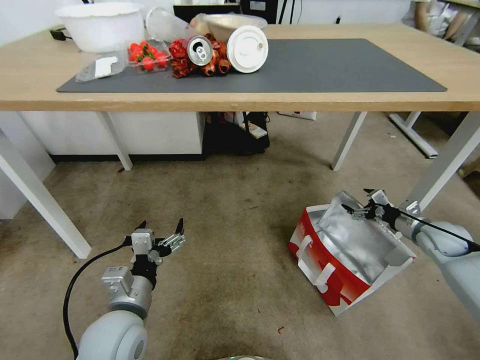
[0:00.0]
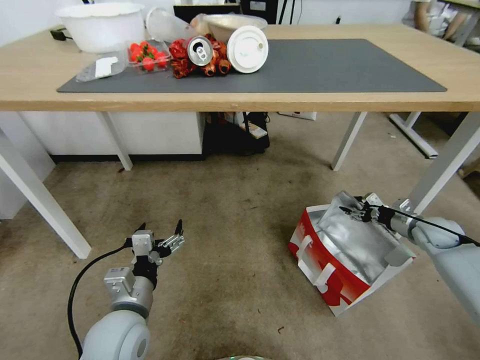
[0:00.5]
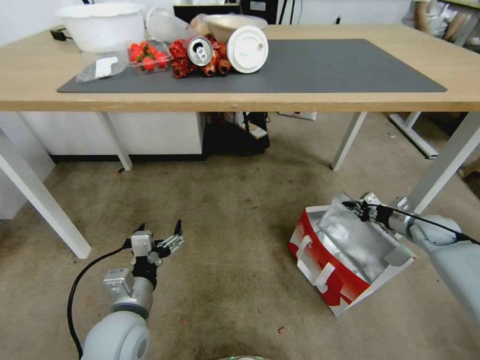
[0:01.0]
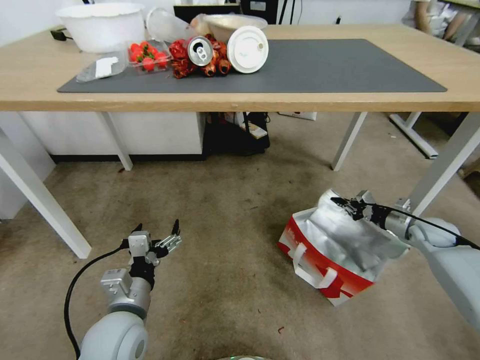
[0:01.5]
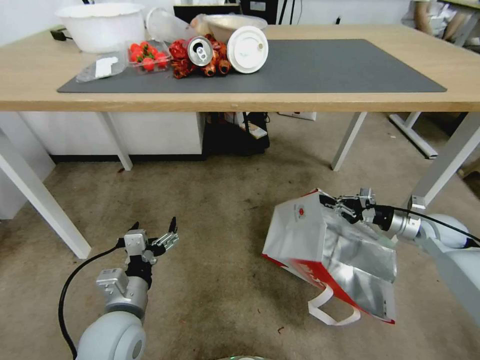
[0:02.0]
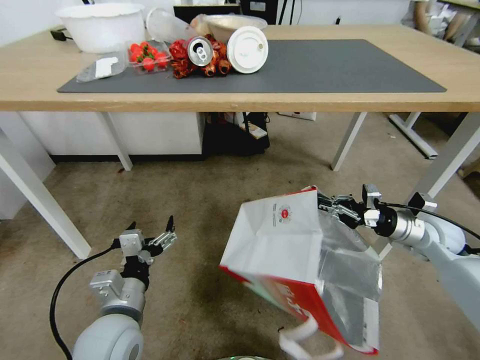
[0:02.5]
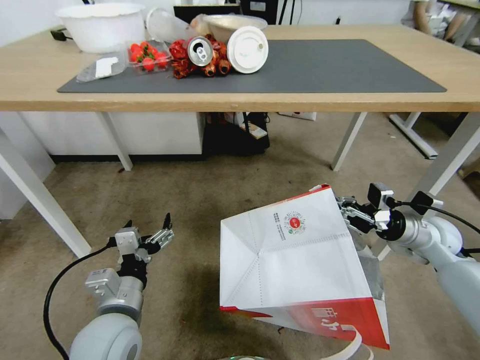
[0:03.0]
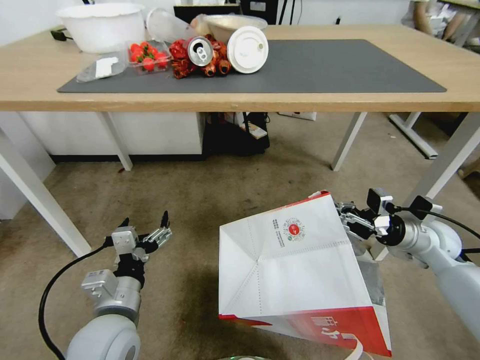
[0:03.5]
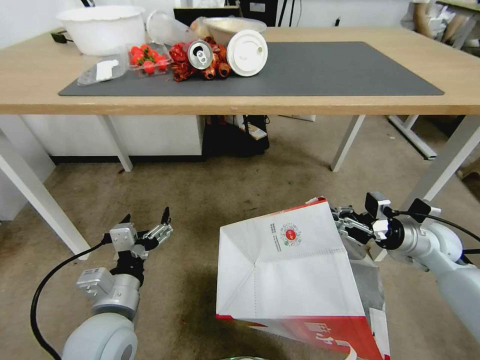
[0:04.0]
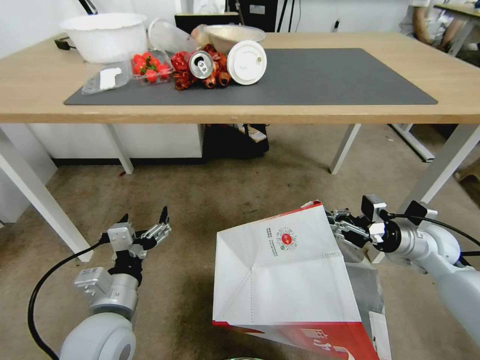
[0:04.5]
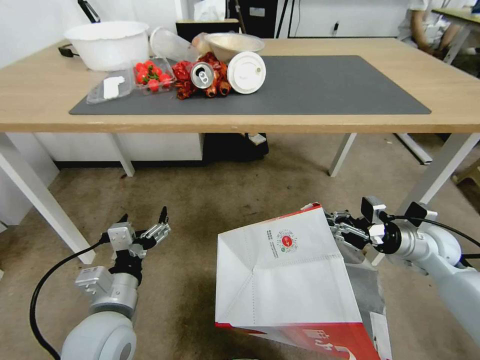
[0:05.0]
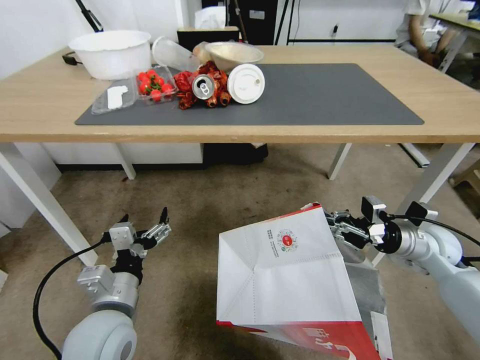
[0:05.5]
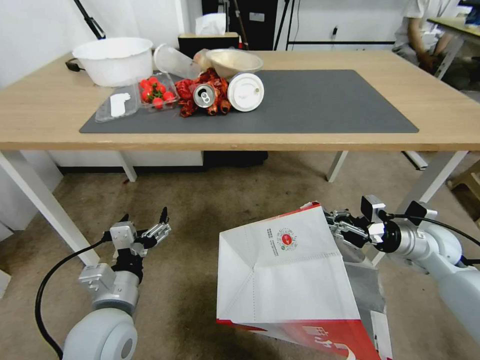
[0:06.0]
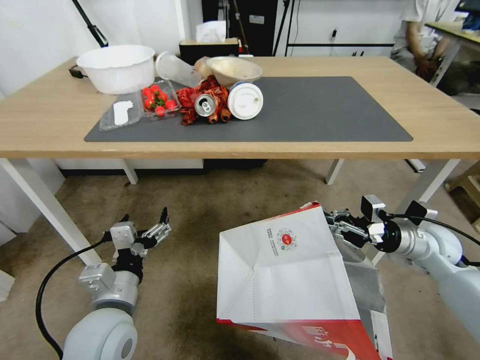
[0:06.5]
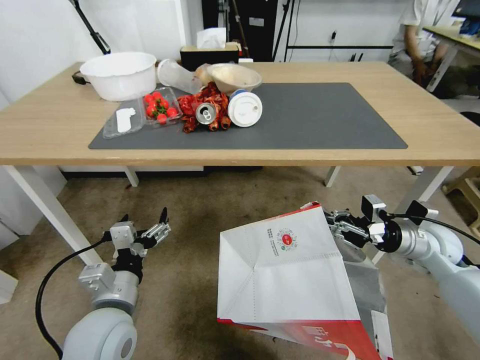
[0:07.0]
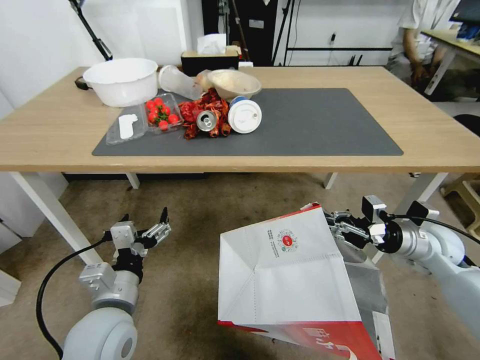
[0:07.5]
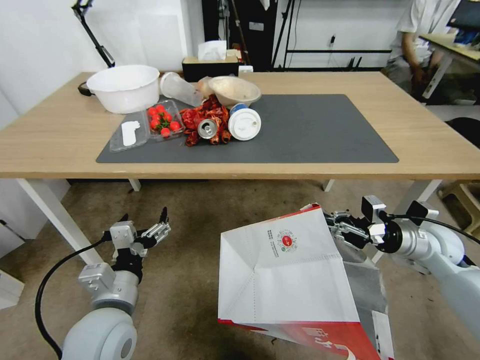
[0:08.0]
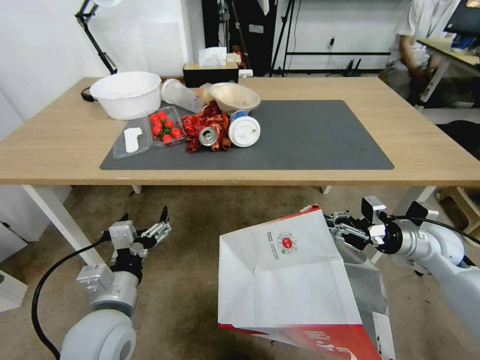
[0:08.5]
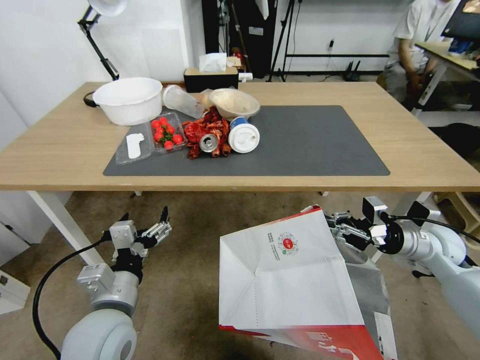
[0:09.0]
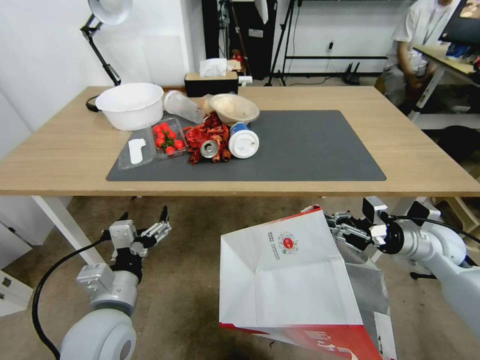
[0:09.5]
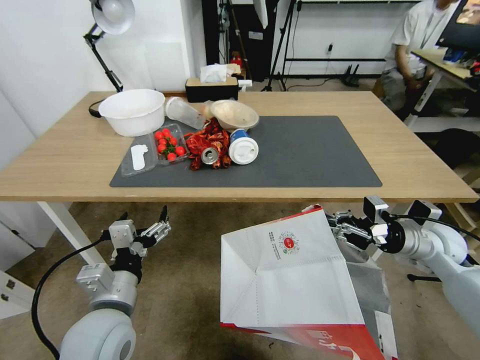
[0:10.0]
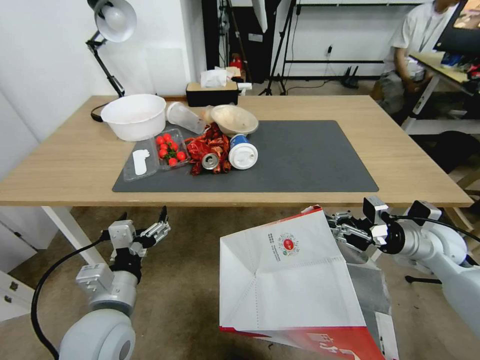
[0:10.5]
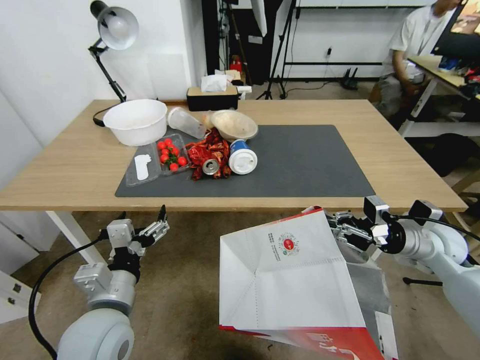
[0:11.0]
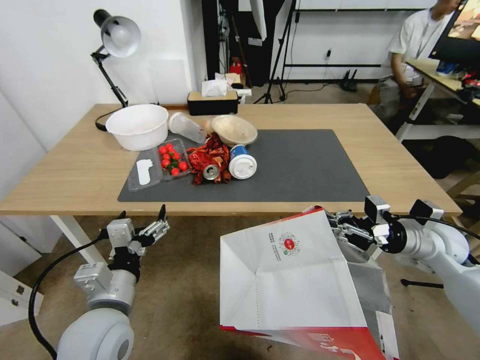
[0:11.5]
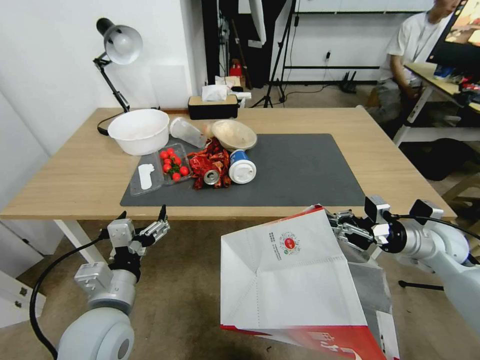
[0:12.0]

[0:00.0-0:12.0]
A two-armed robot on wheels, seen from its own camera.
Task of the whole recording: Pick up the food delivery bag from the floor and place it on the table.
0:00.0 to 0:02.0: The right gripper closes.
0:02.0 to 0:04.0: The right gripper shifts about 5 cm to the left.

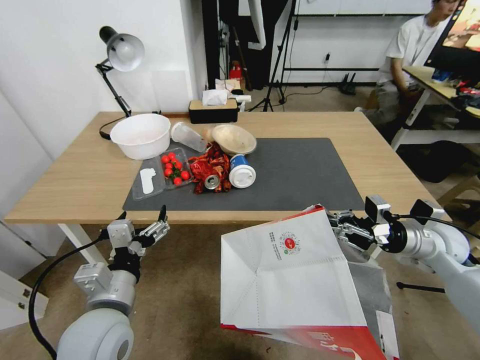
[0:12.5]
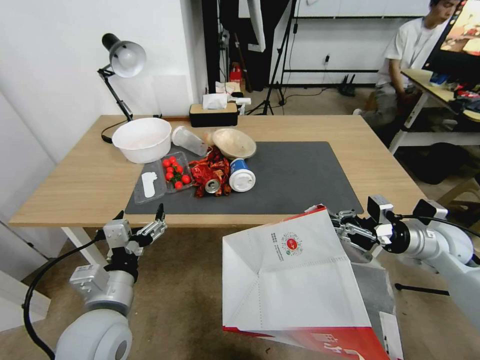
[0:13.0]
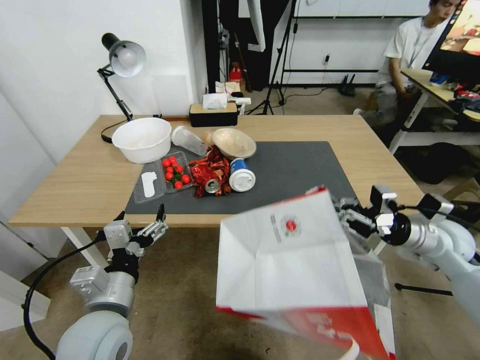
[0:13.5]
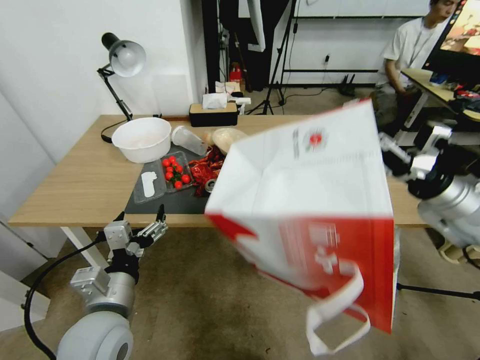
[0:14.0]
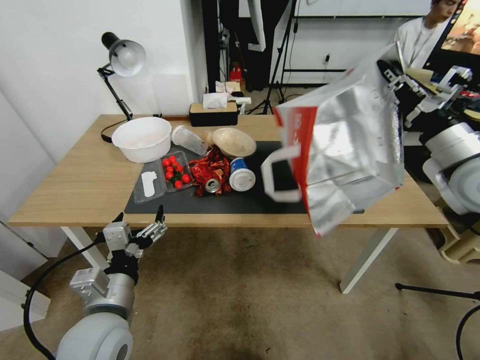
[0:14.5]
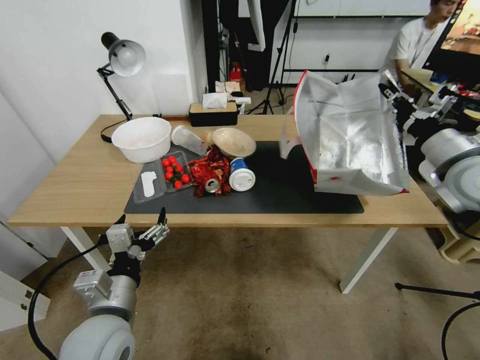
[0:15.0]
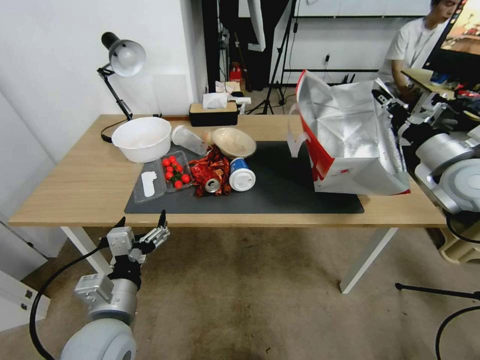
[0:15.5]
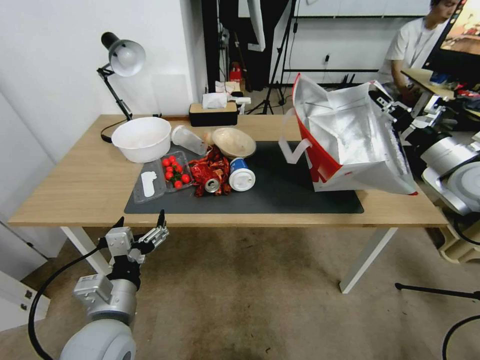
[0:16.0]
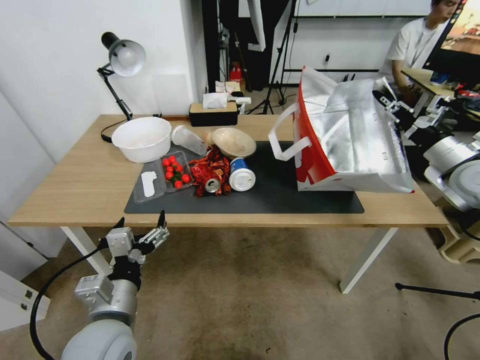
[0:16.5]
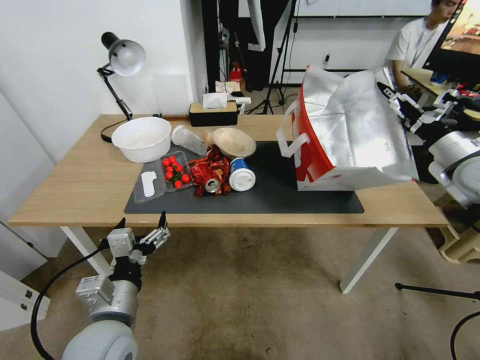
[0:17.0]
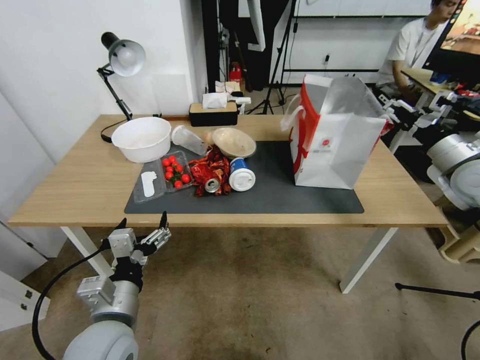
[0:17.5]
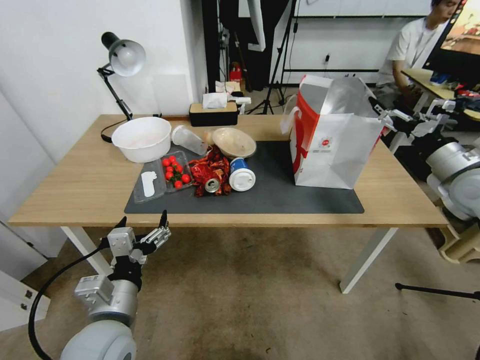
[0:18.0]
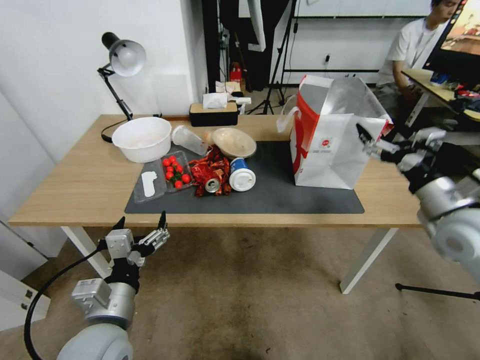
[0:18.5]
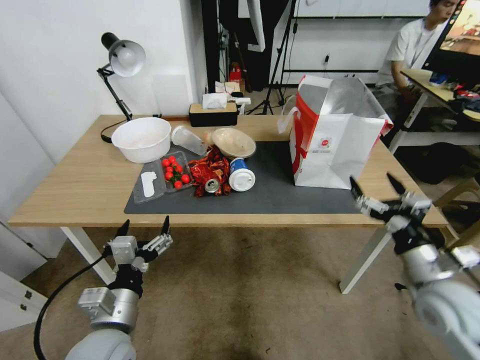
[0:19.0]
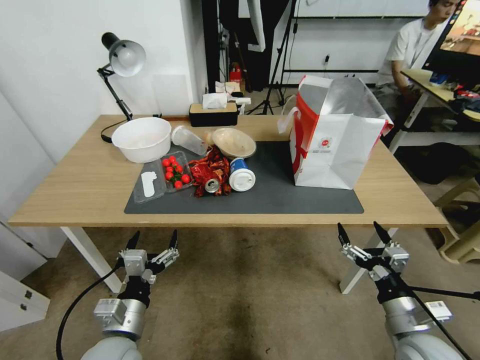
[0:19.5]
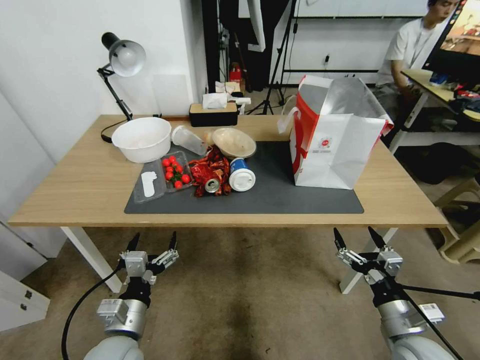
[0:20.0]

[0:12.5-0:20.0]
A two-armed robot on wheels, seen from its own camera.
Task of the whole recording: Pick up the food delivery bag from the floor and place it on the table.
0:12.5 to 0:14.5: The right gripper heads upward, covering roughly 20 cm.
0:14.5 to 0:16.5: The right gripper moves to the right, downward and forward, roughly 10 cm.
0:16.5 to 0:18.0: The right gripper opens up.
0:18.0 to 0:20.0: The left gripper shifts some 10 cm downward, while the right gripper goes approximately 35 cm downward, backward and to the left.
